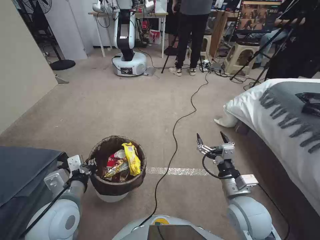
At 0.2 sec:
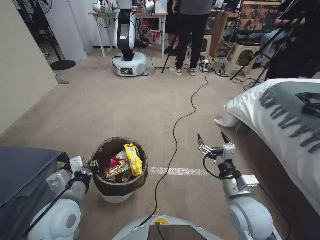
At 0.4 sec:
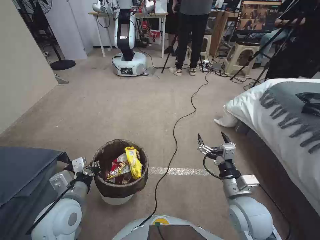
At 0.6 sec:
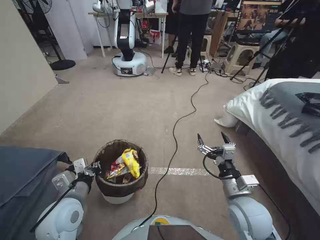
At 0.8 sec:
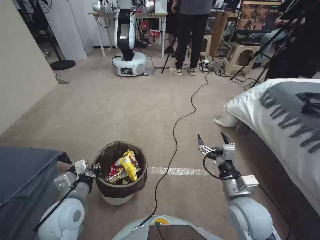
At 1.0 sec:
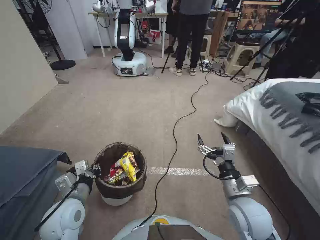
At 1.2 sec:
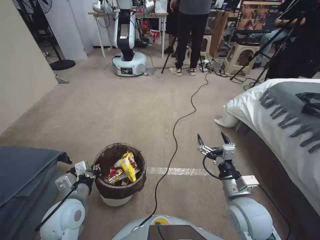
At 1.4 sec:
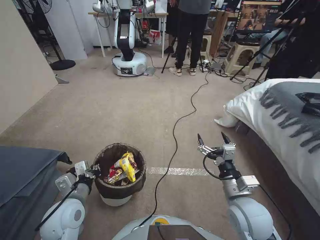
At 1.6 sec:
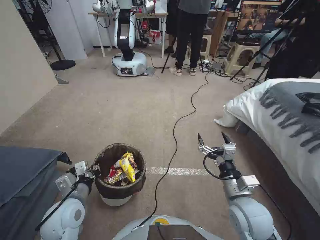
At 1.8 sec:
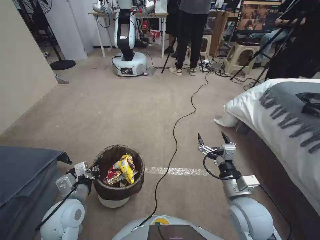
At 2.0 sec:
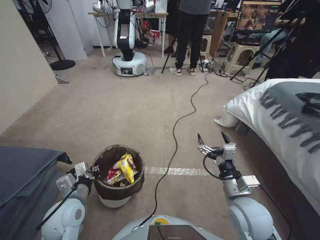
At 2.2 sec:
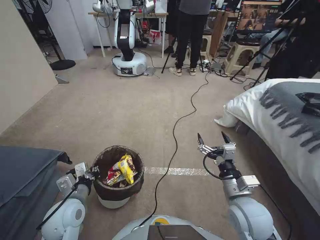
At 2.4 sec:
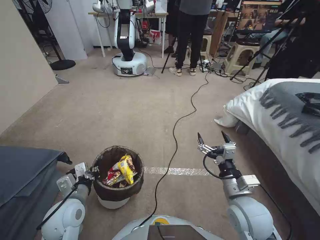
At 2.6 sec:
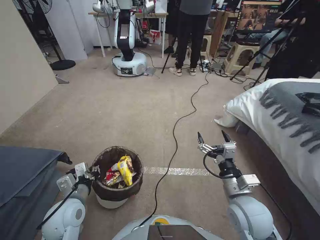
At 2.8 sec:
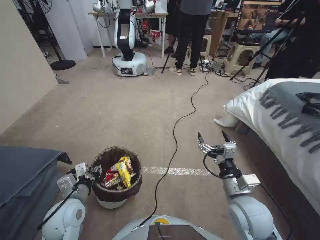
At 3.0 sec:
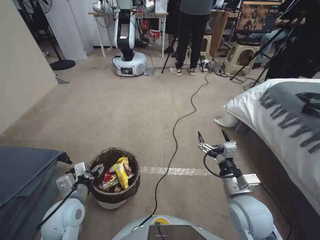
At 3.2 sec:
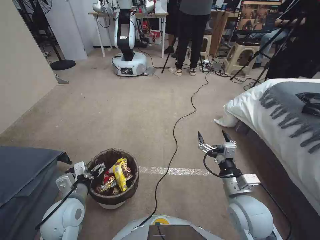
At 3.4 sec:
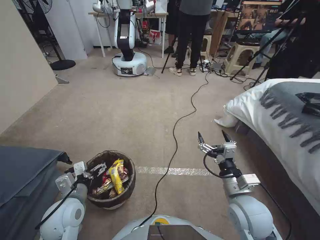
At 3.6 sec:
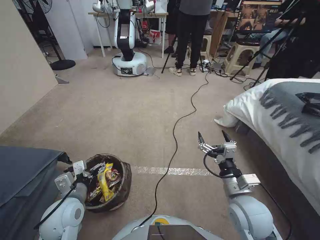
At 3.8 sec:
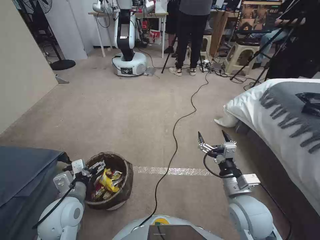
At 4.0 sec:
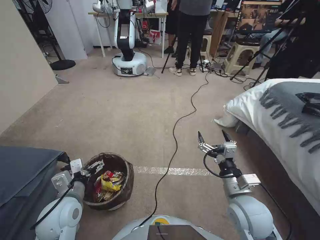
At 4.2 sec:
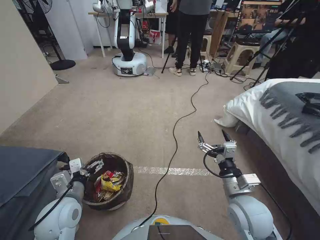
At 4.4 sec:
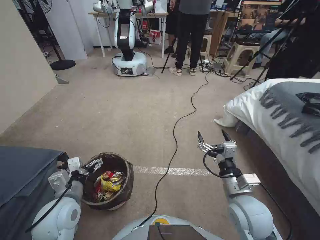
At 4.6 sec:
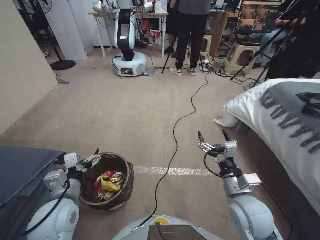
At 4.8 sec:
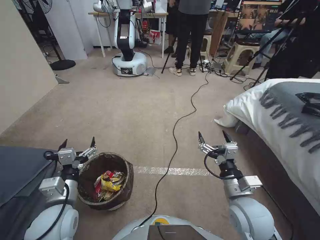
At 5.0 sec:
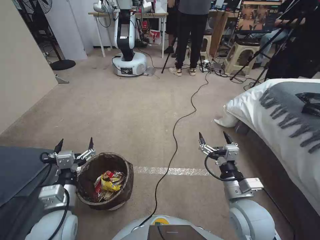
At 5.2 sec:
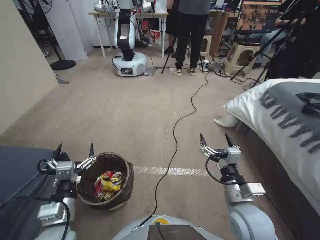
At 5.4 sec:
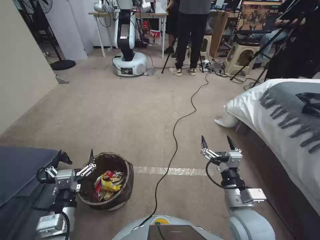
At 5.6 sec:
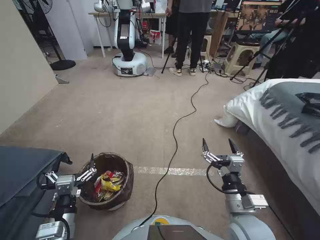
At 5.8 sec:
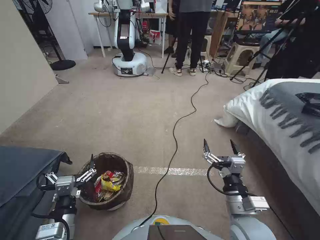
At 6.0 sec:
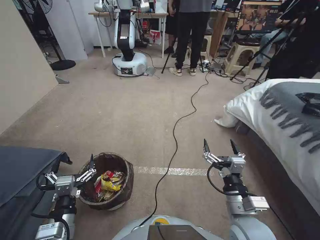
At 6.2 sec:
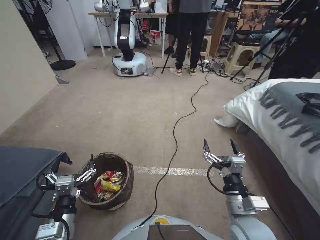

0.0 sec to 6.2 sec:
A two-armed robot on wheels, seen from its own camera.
Task of the whole recording: Pick up the trash bin, then pick up the garbage from the floor and place it into the trash bin.
0.0 sec to 1.6 sec: The left gripper shifts roughly 5 cm downward.
1.6 sec to 3.2 sec: The left gripper opens up.
3.2 sec to 4.6 sec: The grippers make only small movements.
4.6 sec to 6.2 sec: The right gripper ends up about 5 cm from where it was. Meanwhile the left gripper moves backward, roughly 10 cm.
